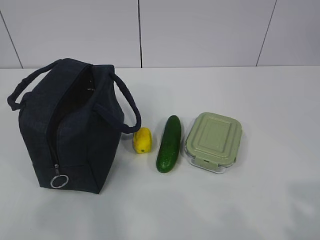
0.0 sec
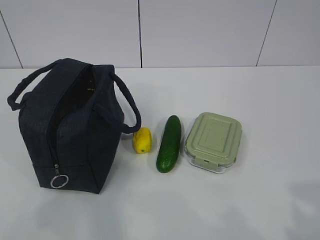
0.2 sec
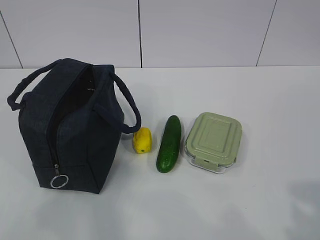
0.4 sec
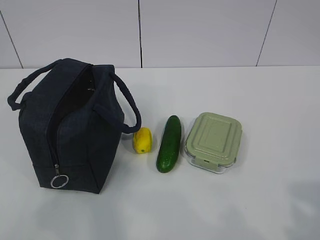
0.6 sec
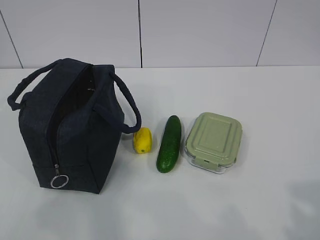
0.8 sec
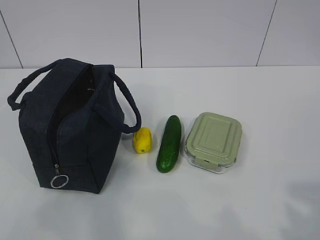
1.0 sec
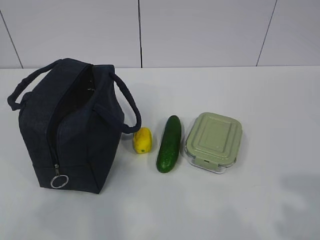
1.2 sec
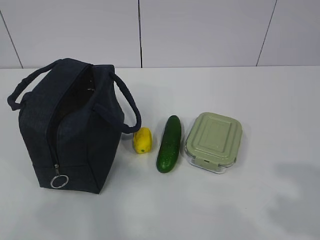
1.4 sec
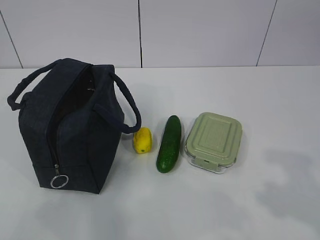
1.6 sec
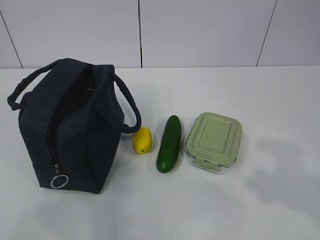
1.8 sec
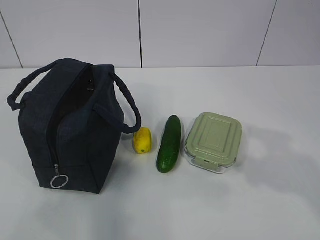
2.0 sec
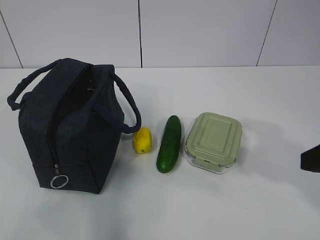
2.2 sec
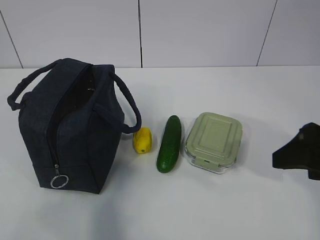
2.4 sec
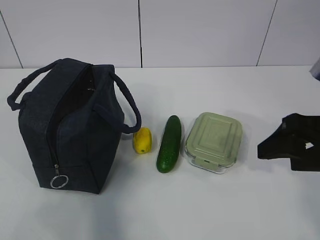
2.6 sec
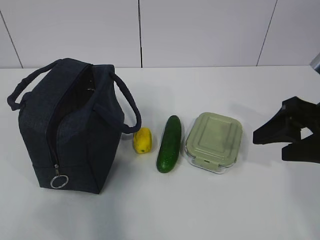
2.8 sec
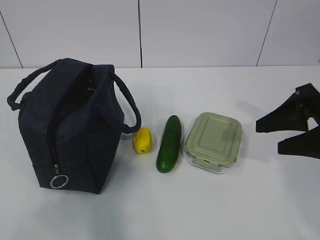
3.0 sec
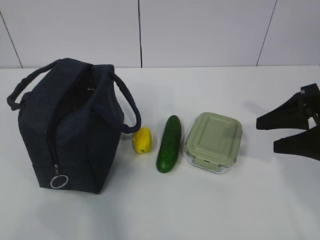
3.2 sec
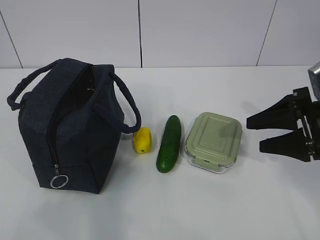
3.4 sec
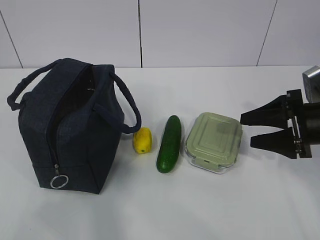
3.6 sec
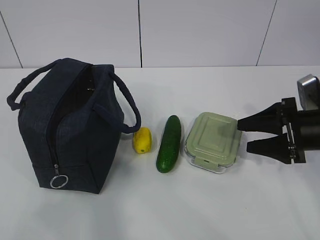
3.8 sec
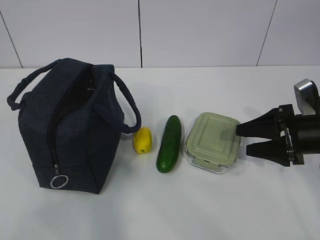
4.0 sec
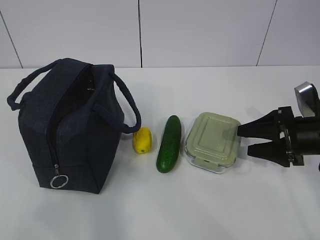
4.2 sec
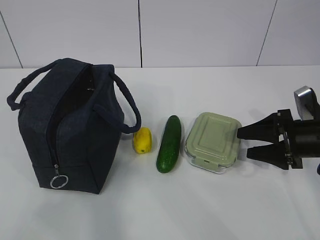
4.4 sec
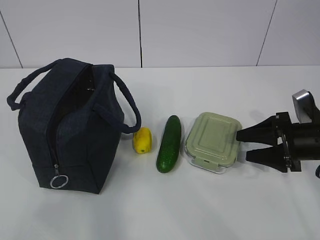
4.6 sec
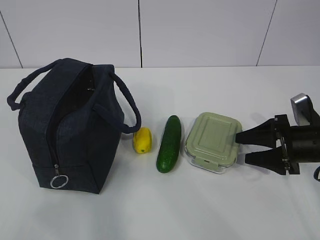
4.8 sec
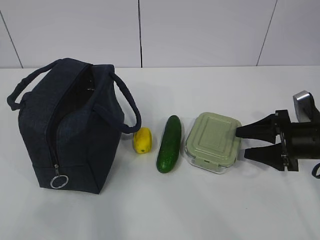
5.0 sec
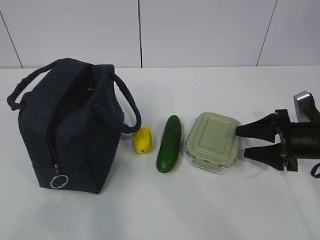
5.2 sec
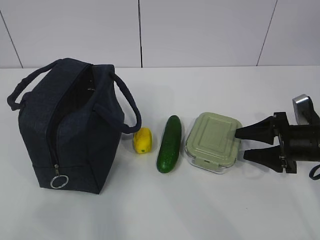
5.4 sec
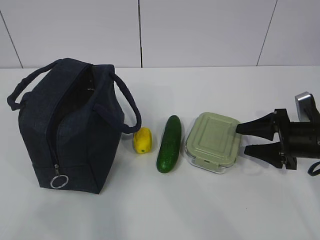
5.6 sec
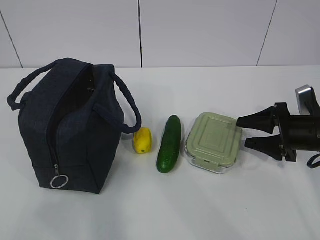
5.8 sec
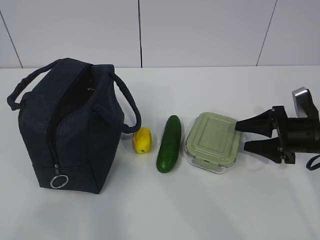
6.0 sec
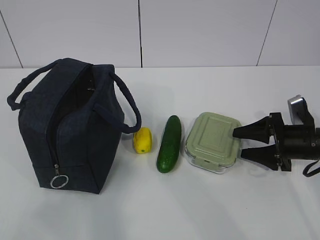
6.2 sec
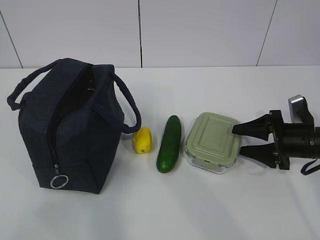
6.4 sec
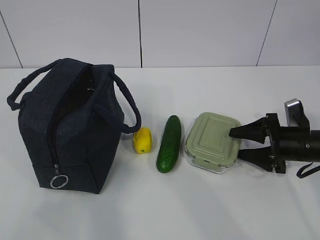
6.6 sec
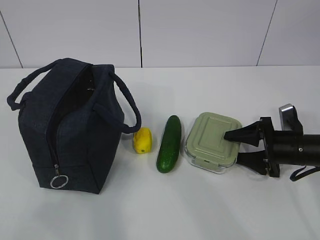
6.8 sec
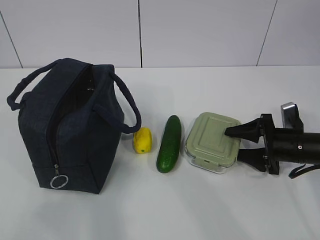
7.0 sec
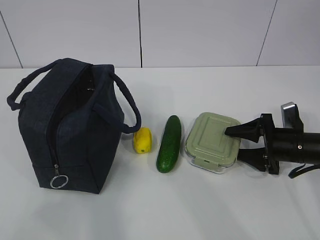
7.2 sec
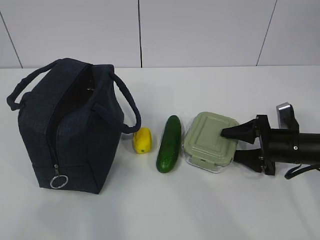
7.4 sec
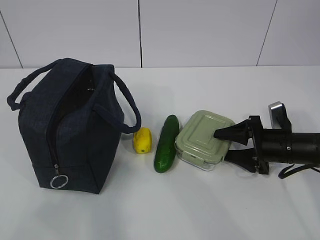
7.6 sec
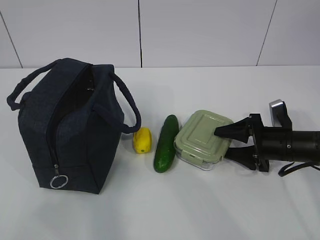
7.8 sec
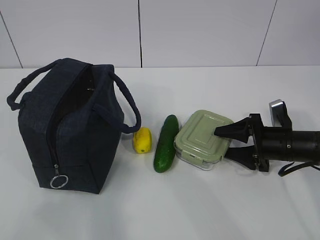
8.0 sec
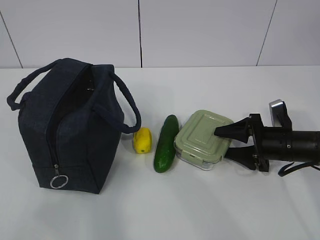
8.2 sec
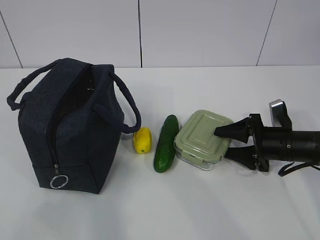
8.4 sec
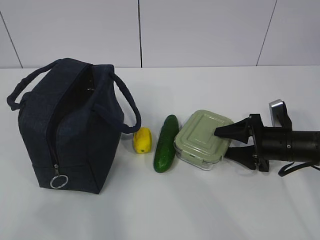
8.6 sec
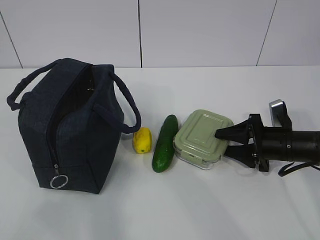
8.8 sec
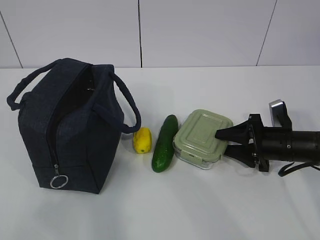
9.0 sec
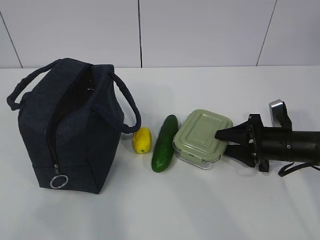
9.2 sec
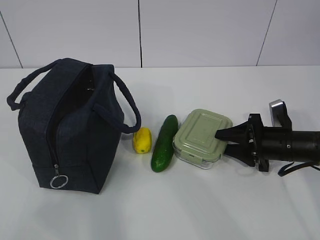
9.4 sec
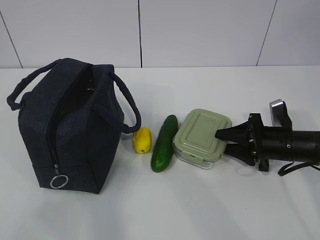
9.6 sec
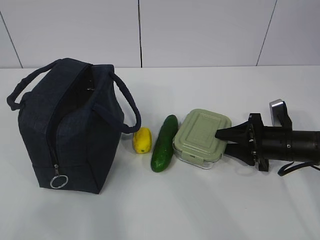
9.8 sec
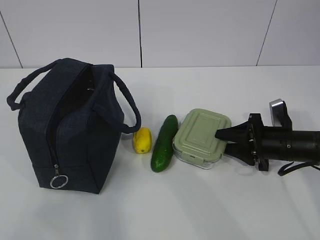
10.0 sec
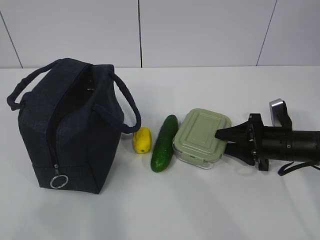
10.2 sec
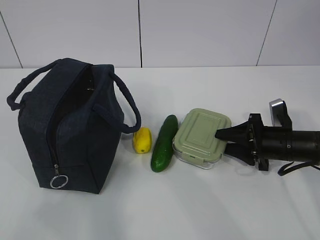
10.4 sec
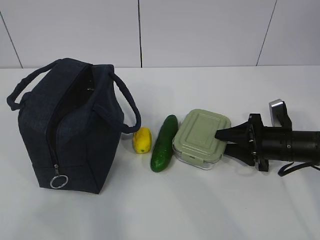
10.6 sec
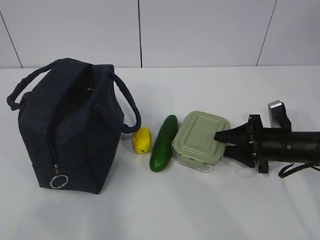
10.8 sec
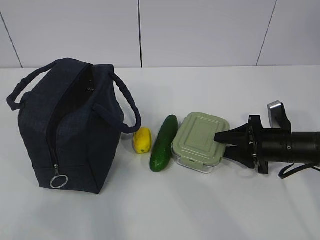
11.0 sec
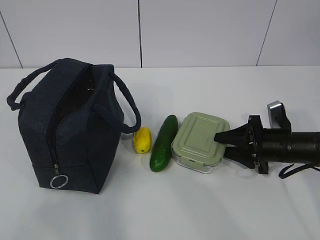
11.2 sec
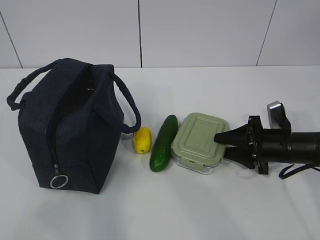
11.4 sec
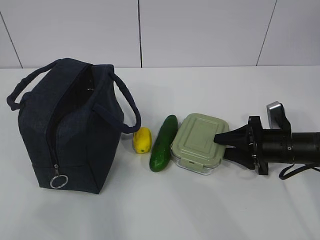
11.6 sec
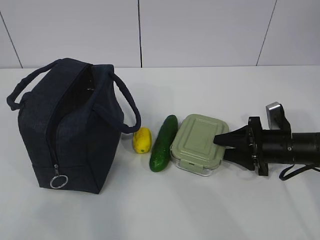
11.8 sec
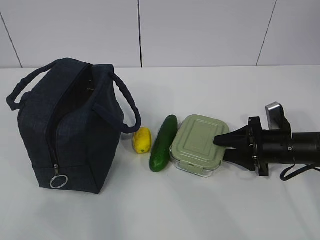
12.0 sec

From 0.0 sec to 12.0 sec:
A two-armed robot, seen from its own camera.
From 1.6 sec to 3.0 sec: The right gripper goes about 20 cm forward.
From 3.0 sec to 4.4 sec: The right gripper heads downward and forward, covering some 10 cm.
From 4.4 sec to 6.0 sec: There are only small adjustments of the grippers.
From 6.0 sec to 7.6 sec: The right gripper shifts by about 5 cm.
From 7.6 sec to 10.4 sec: Both grippers stay put.
From 10.4 sec to 12.0 sec: The grippers make only small movements.

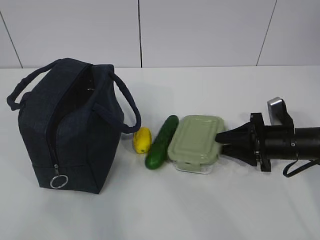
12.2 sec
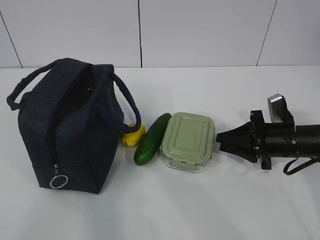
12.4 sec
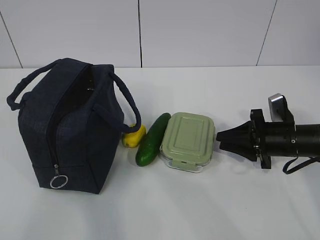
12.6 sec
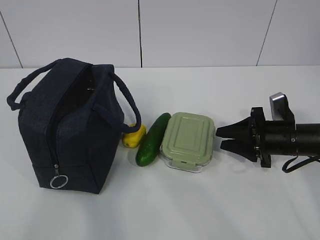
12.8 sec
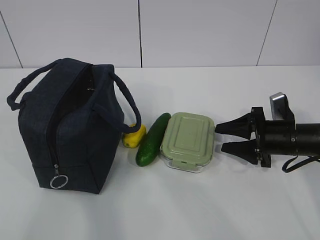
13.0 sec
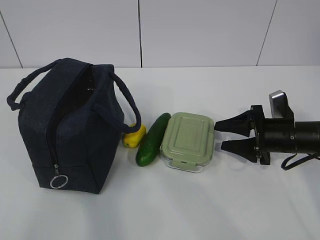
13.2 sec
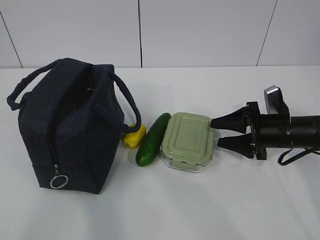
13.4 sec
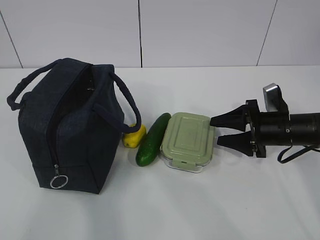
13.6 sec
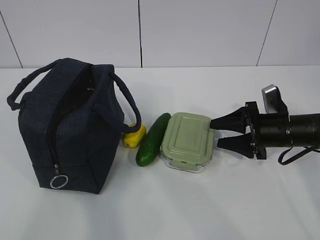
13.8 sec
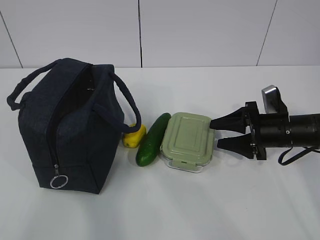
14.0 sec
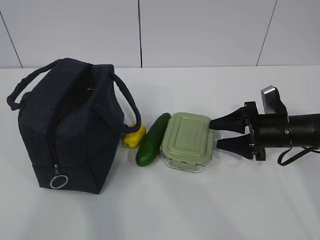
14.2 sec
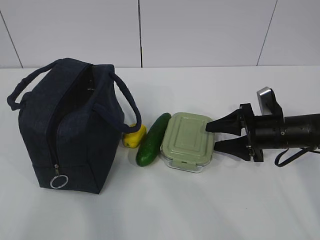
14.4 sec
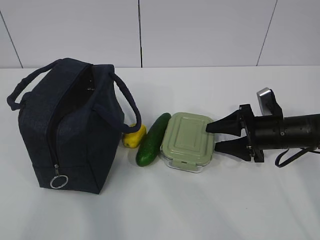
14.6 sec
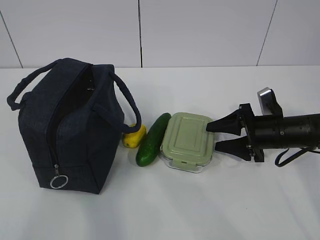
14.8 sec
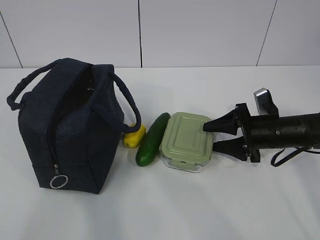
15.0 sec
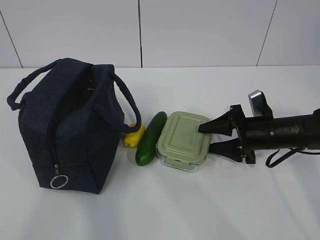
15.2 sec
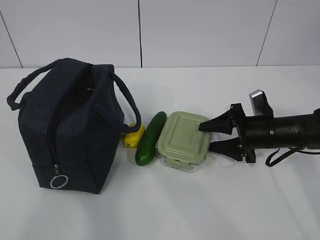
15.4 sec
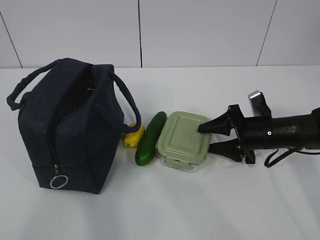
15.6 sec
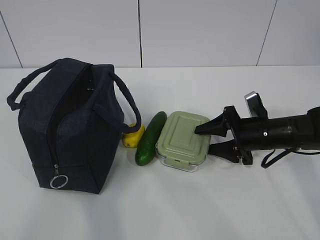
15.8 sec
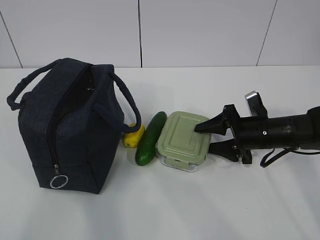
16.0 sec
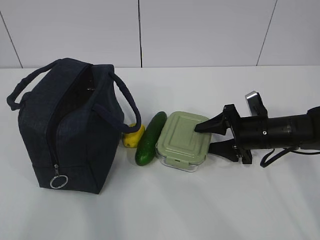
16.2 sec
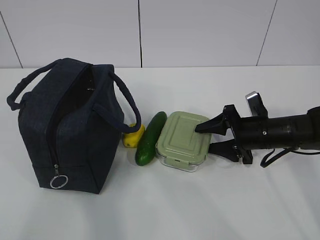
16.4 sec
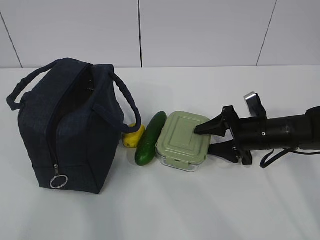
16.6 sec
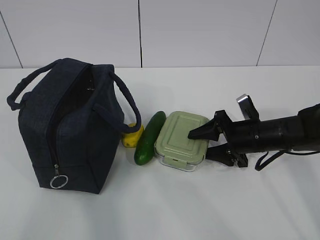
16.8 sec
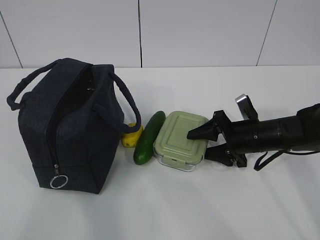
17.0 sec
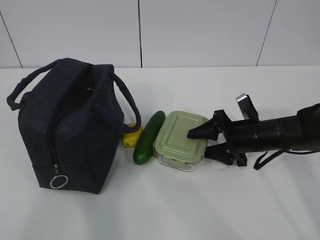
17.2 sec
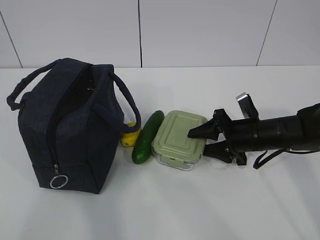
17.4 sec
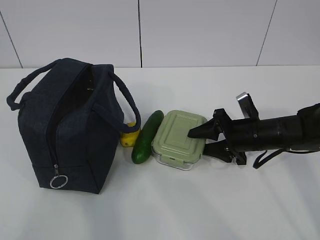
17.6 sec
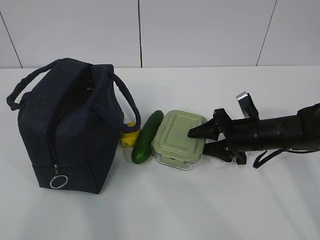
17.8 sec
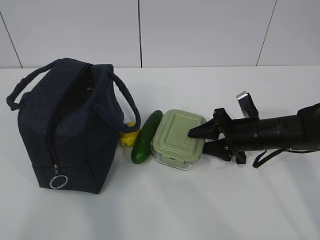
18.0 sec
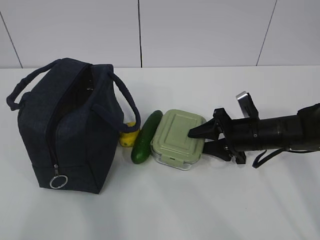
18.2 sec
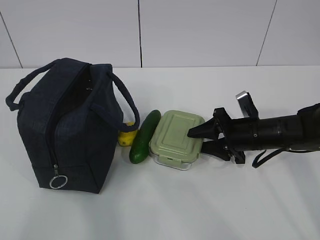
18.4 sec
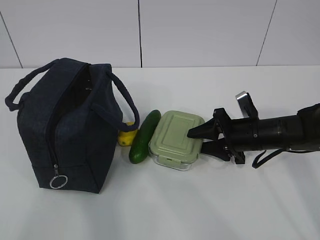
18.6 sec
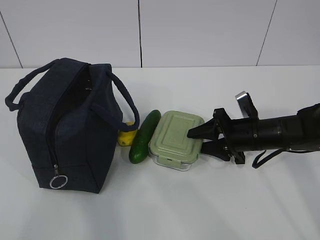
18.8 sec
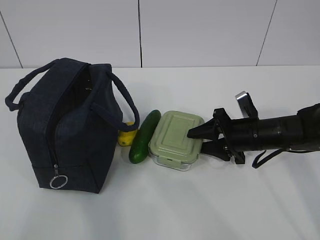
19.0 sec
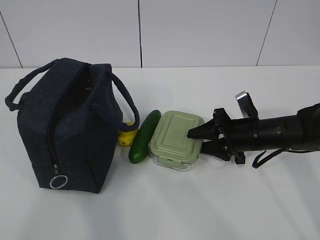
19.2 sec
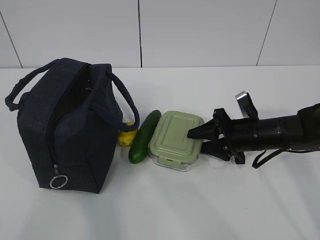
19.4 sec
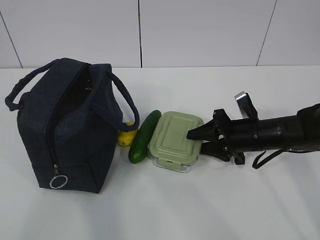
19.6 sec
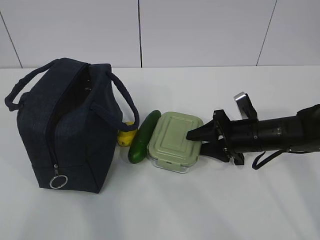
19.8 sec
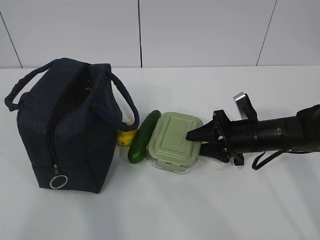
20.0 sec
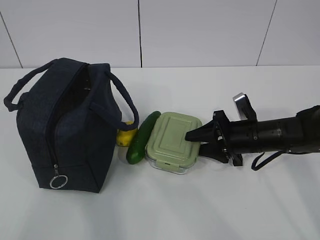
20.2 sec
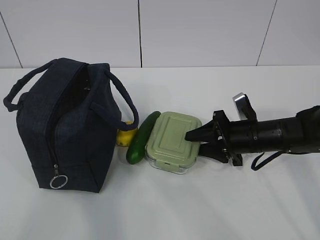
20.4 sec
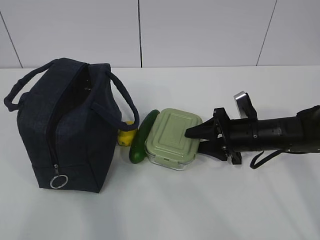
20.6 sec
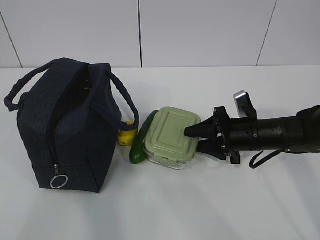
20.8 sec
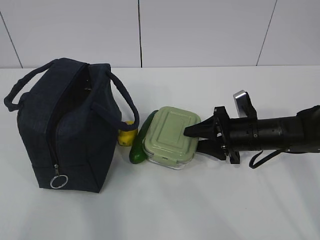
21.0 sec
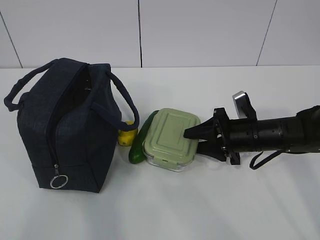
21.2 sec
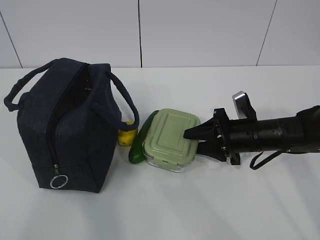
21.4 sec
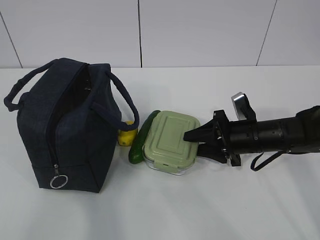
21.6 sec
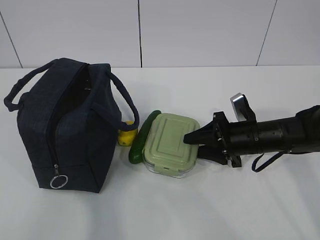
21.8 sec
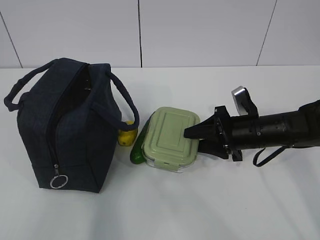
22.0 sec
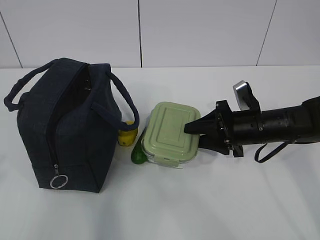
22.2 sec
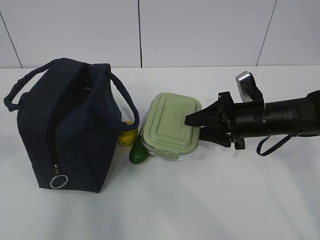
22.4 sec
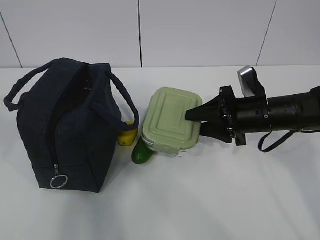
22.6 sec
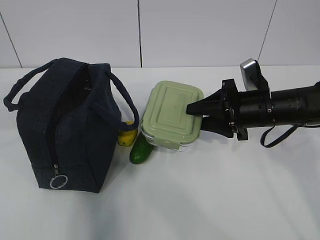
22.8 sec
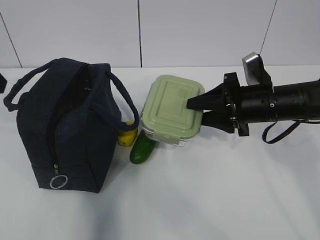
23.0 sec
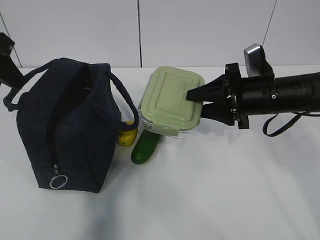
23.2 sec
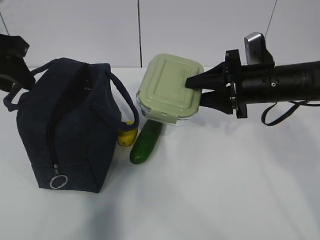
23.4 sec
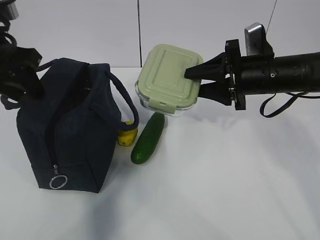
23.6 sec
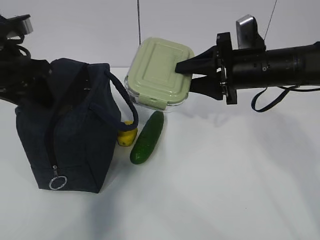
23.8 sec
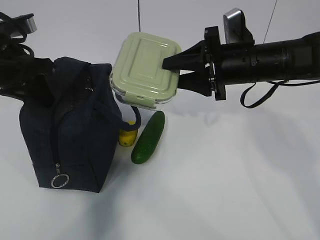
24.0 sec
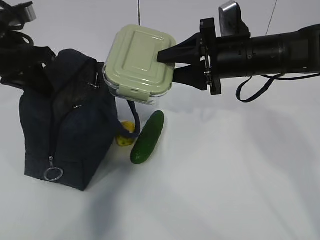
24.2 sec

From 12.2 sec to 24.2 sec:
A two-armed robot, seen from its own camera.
Step, from 12.2 sec to 16.4 sec: Grab the lunch box with your right hand.
Step, from 20.6 sec to 23.2 sec: Place it into the bag with your right hand.
From 12.2 sec to 15.2 sec: The grippers stay close to where they were, moving slightly.
From 15.2 sec to 16.6 sec: Neither gripper changes place.
From 16.6 sec to 18.2 sec: The grippers make only small movements.
From 18.2 sec to 19.8 sec: Both grippers stay about where they are.
From 19.8 sec to 21.2 sec: Both grippers stay about where they are.
From 21.2 sec to 22.6 sec: The right gripper travels upward by some 5 cm; the left gripper travels forward by roughly 10 cm.
From 22.6 sec to 24.2 sec: The left gripper goes roughly 20 cm forward, and closes. Meanwhile the right gripper heads upward, covering approximately 10 cm.
